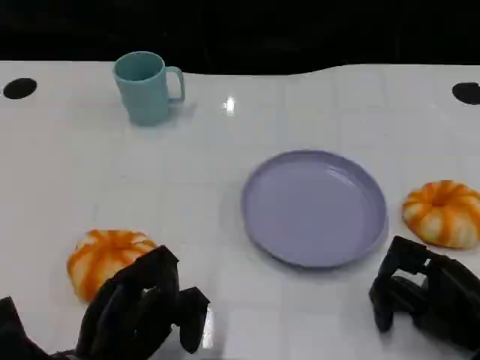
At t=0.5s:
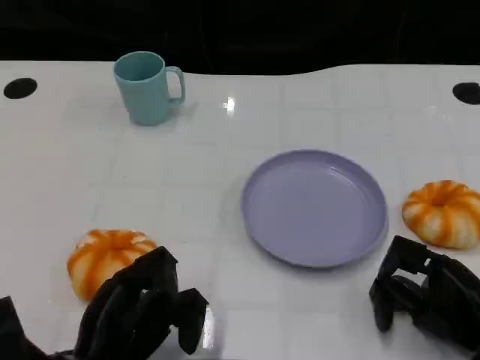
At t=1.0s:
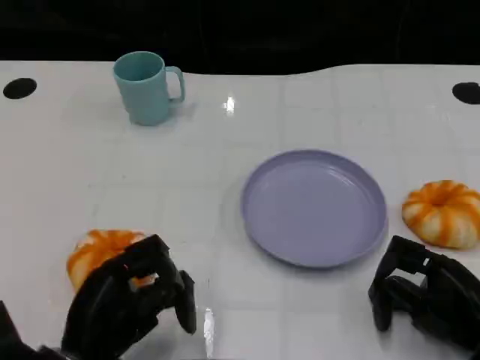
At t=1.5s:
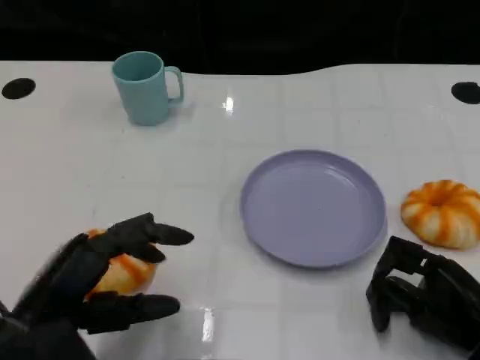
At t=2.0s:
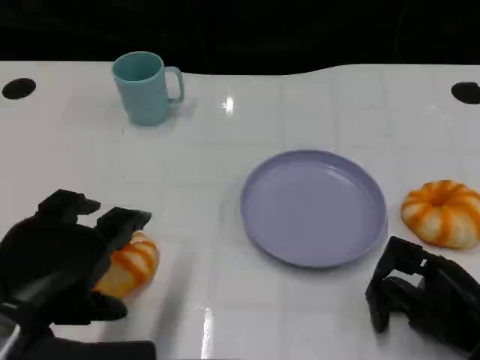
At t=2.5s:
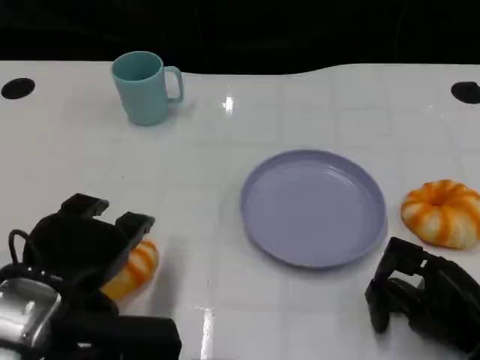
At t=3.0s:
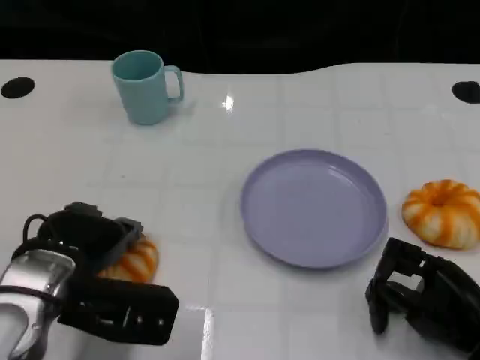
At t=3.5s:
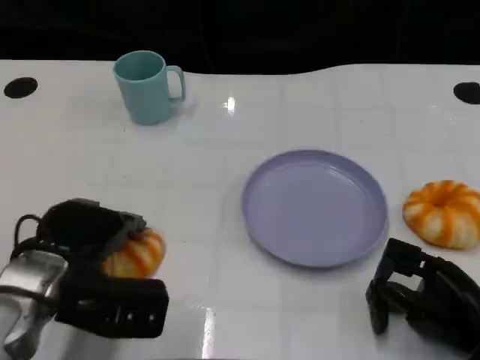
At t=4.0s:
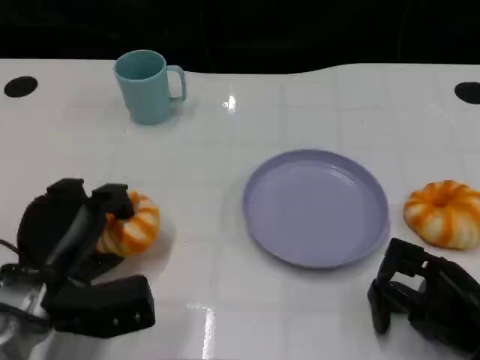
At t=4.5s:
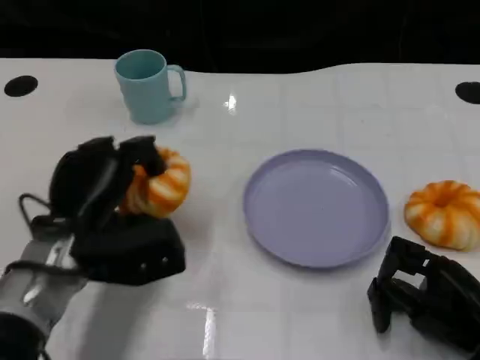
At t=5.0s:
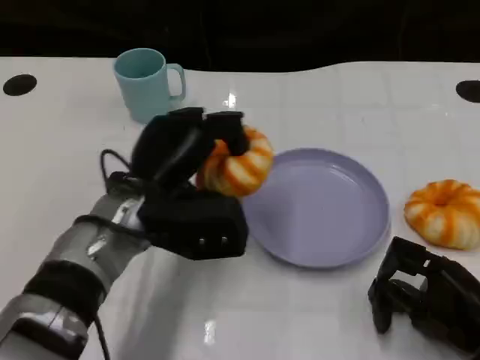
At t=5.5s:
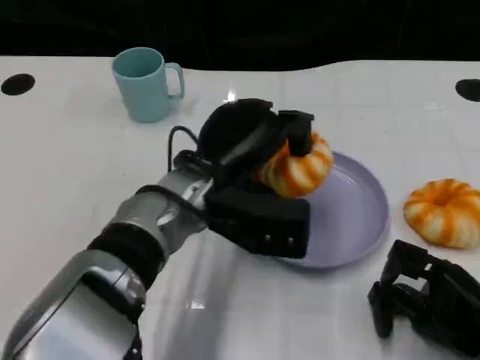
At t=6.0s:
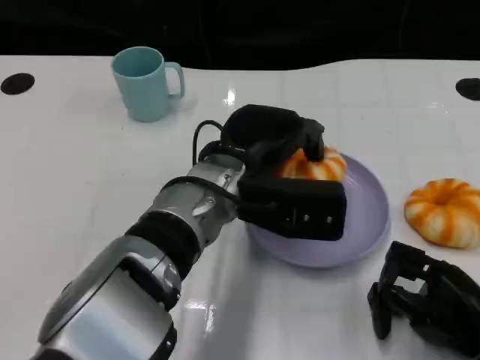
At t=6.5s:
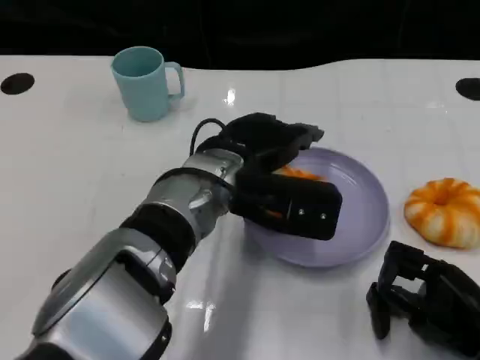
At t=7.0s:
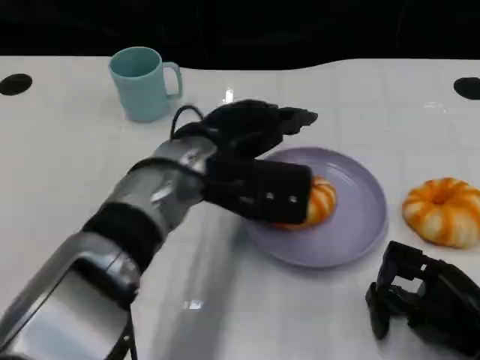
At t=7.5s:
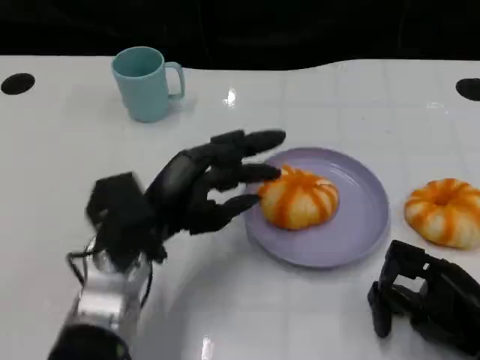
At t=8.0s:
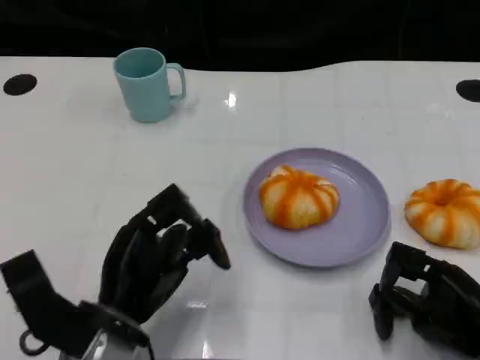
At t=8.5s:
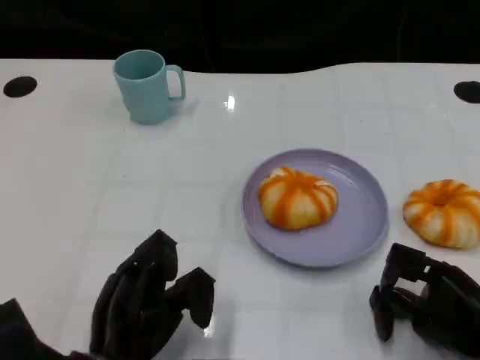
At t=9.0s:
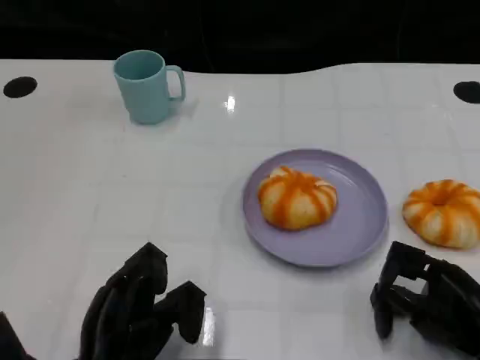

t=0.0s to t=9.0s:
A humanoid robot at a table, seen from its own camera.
Task of the whole recording: Grasp the bread from the table and place it into the plate.
t=0.0s to t=2.0s: The left hand heads upward, covering about 10 cm.
t=2.0s to t=4.5s: The left hand heads forward and downward, covering approximately 15 cm.
t=4.5s to t=7.0s: The left hand goes approximately 10 cm to the right and upward.
t=7.0s to t=9.0s: The left hand goes about 25 cm backward, downward and to the left.

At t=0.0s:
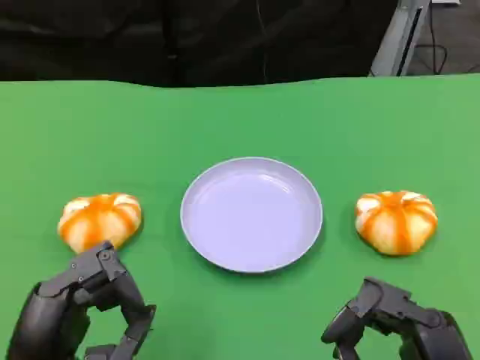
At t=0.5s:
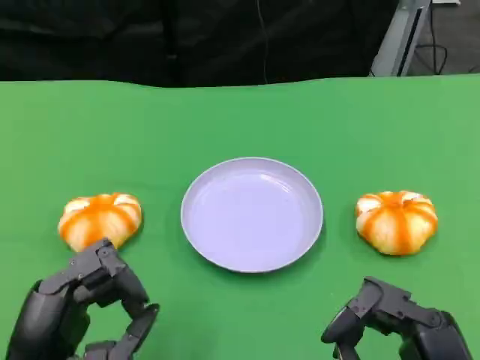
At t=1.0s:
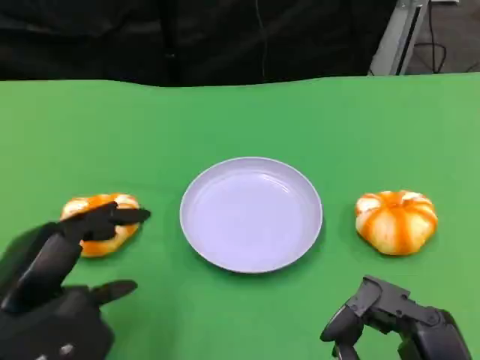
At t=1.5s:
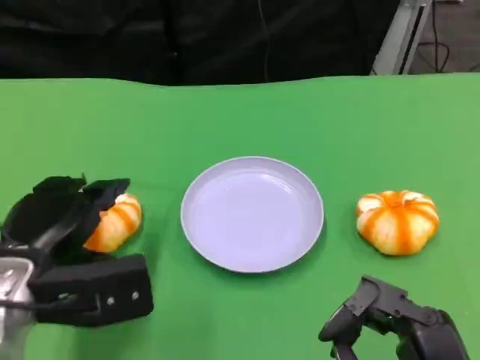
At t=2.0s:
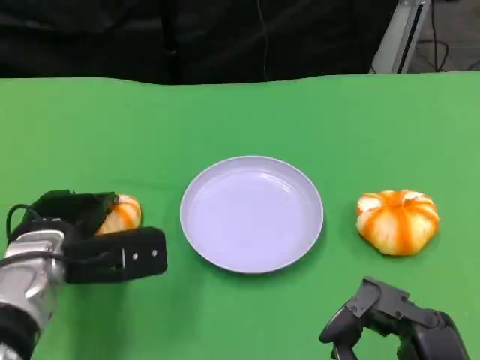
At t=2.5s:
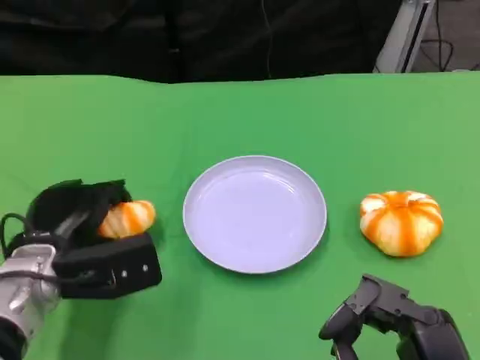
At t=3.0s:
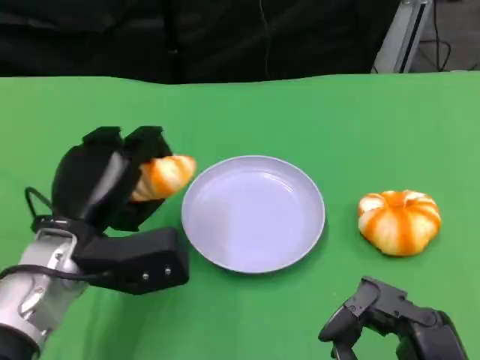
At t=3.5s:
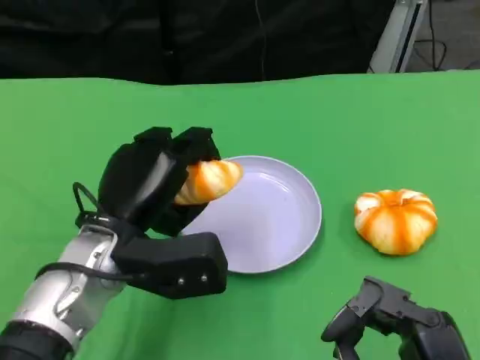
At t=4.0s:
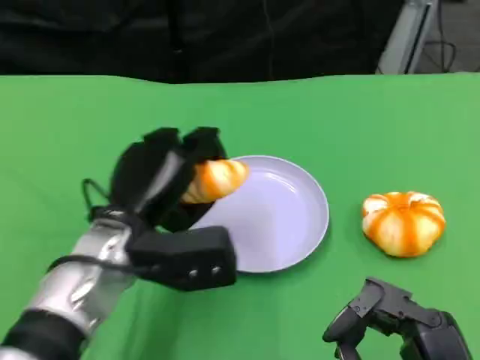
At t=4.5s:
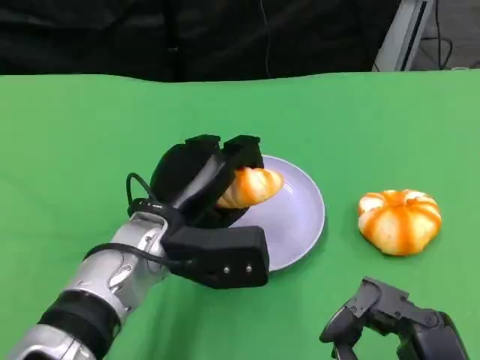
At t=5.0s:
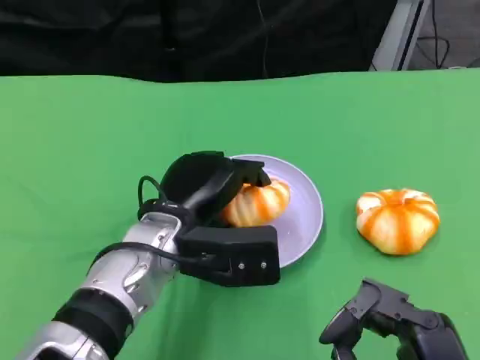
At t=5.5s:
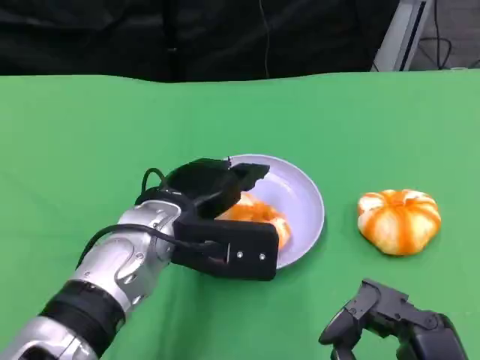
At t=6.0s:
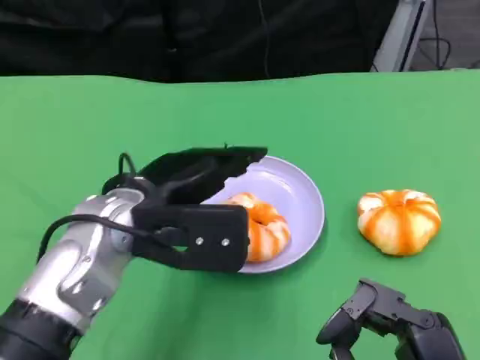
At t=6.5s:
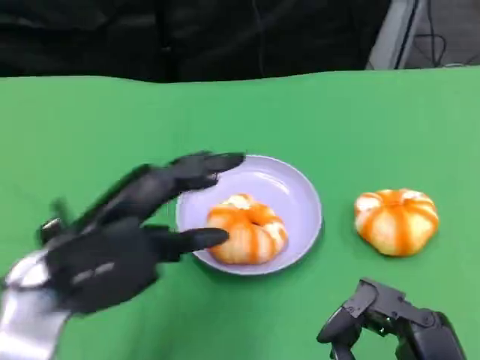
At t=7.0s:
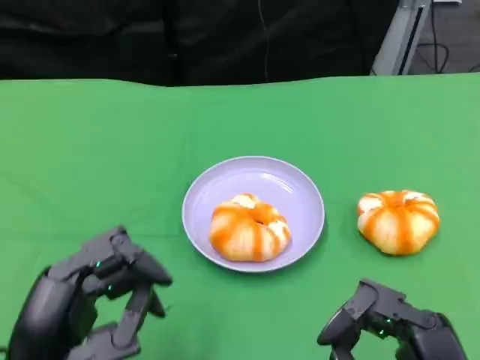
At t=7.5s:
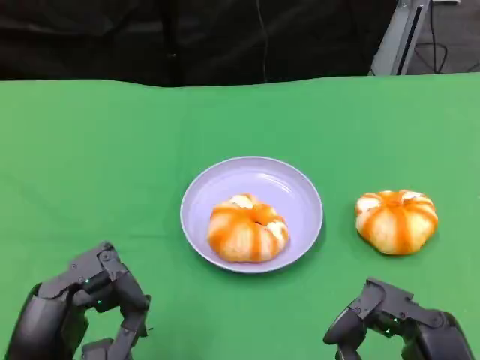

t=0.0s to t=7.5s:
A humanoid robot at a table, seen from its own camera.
Task of the whole recording: Grasp the bread from the table and place it into the plate.
t=0.0s to t=2.0s: The left hand goes some 15 cm forward.
t=2.0s to t=4.0s: The left hand travels to the right by some 10 cm.
t=5.5s to t=7.5s: The left hand is displaced backward and to the left by approximately 20 cm.

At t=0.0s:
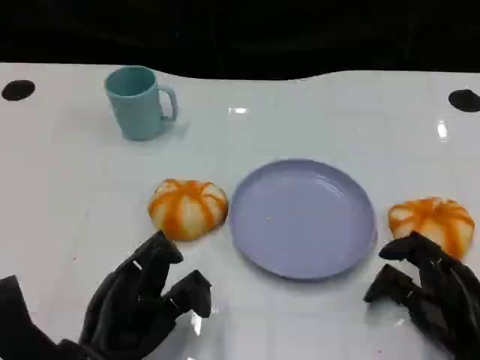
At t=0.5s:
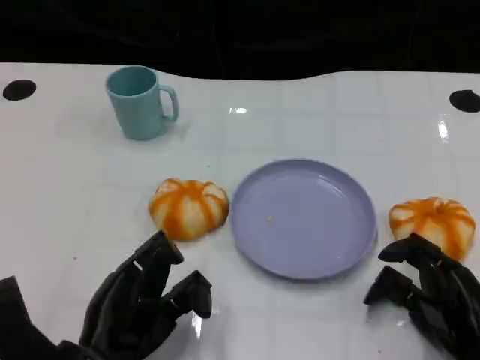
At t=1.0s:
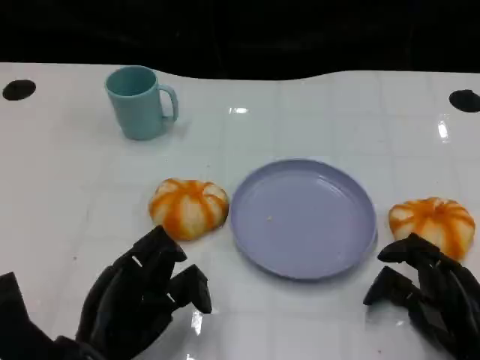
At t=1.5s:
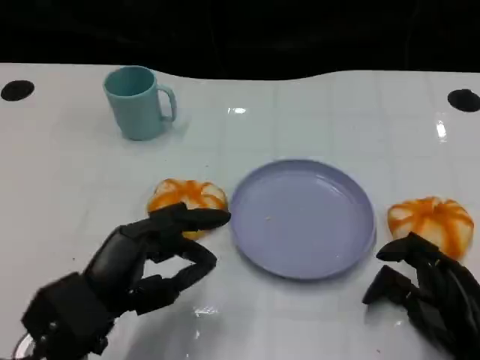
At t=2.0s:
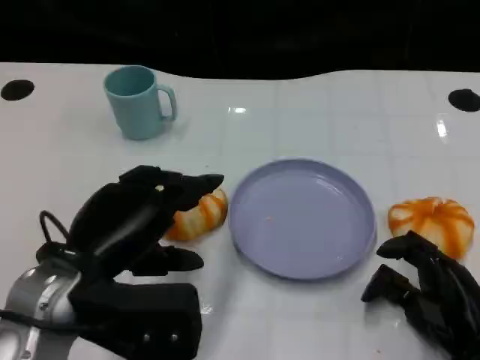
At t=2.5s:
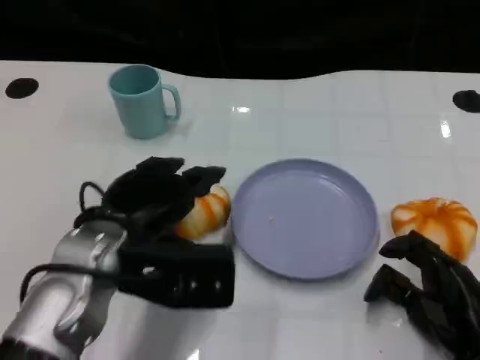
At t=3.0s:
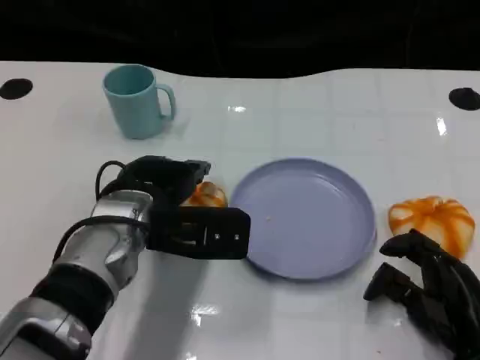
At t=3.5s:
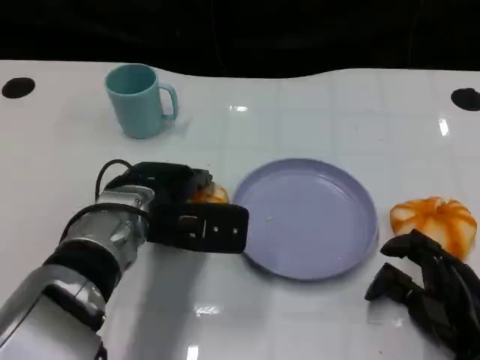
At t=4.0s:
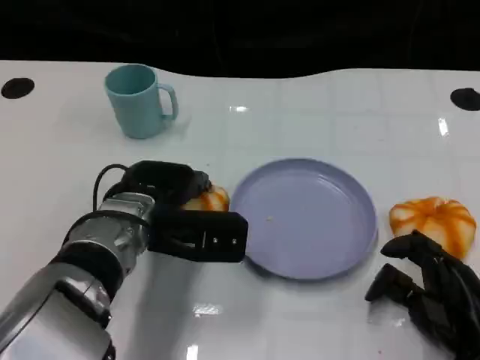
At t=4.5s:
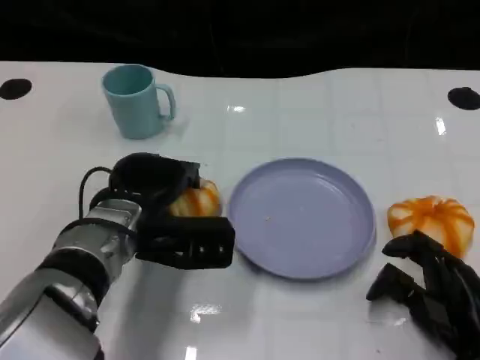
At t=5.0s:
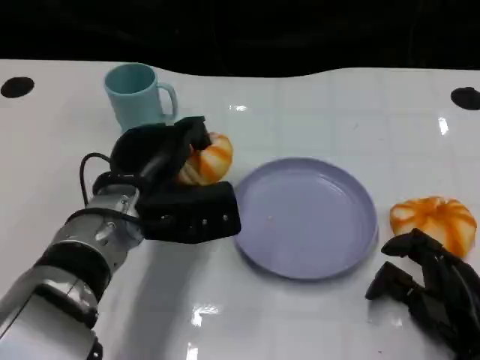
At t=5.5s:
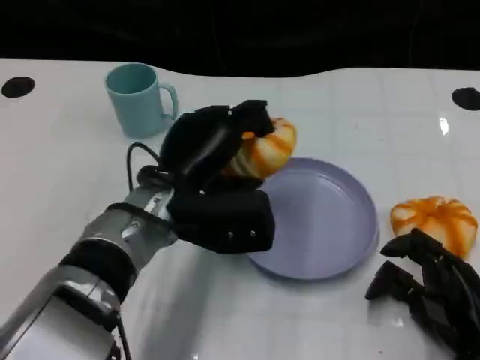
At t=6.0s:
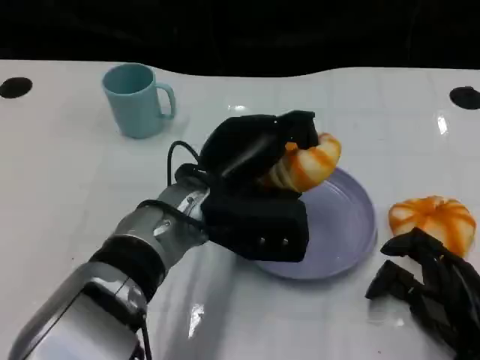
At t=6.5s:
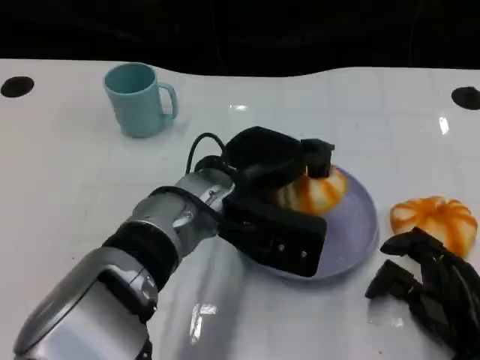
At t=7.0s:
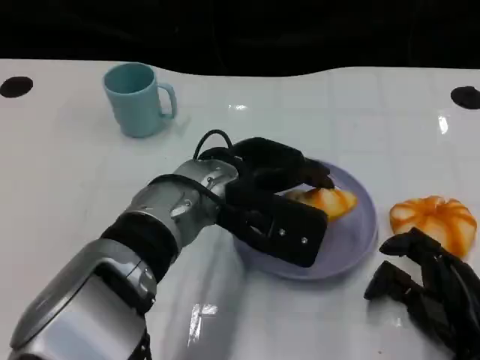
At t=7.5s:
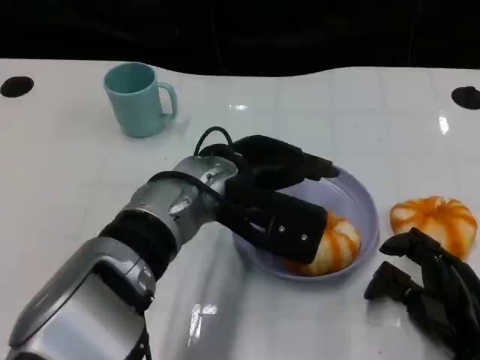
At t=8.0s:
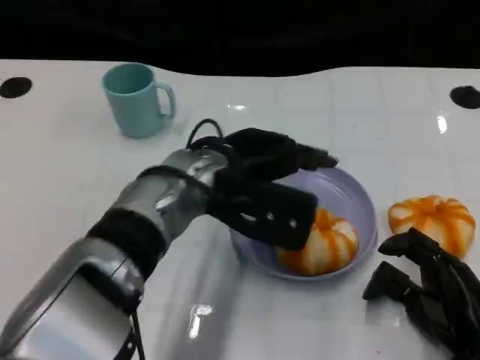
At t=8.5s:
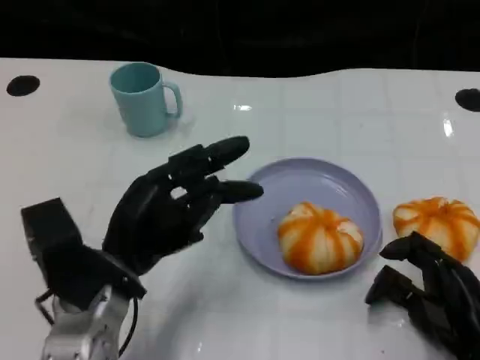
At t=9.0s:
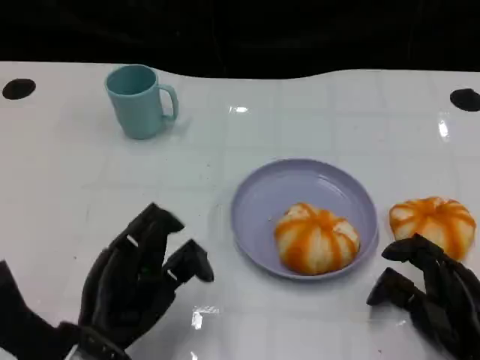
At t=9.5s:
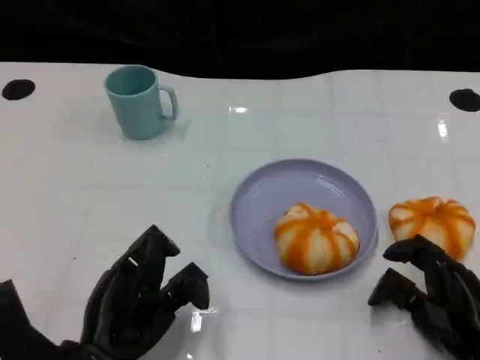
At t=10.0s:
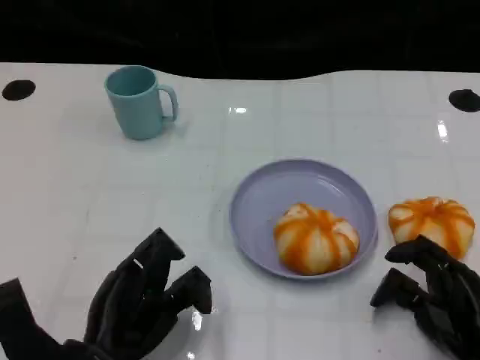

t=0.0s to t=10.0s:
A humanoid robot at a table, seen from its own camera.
Task of the whole recording: Grasp the bread from the table and place it into the plate.
t=0.0s to t=2.0s: The left hand heads upward, covering some 10 cm.
t=2.0s to t=4.0s: The left hand shifts approximately 10 cm forward and to the right.
t=4.0s to t=6.0s: The left hand goes roughly 5 cm to the right.
t=8.0s to t=10.0s: The left hand is displaced backward, to the left and downward by about 20 cm.
